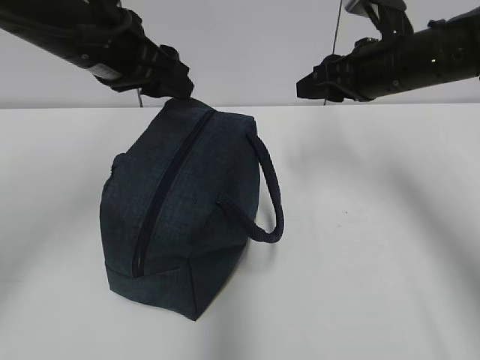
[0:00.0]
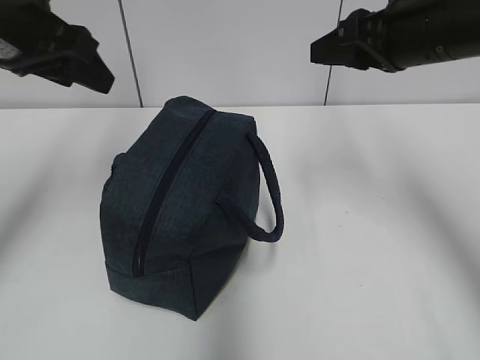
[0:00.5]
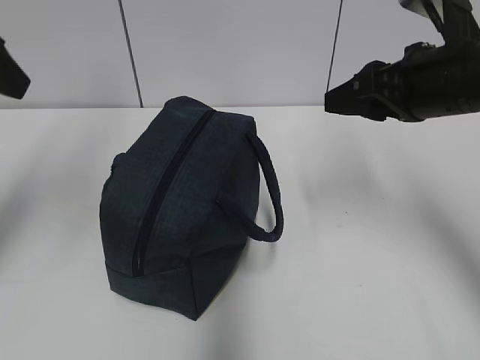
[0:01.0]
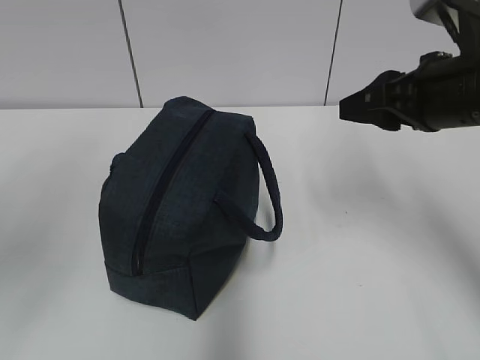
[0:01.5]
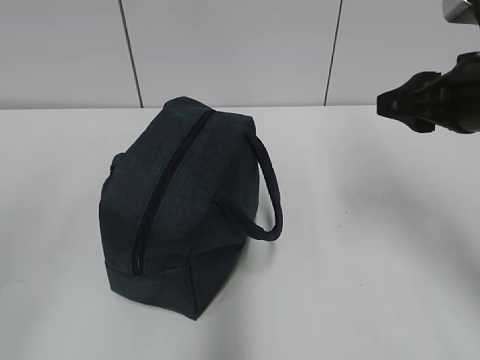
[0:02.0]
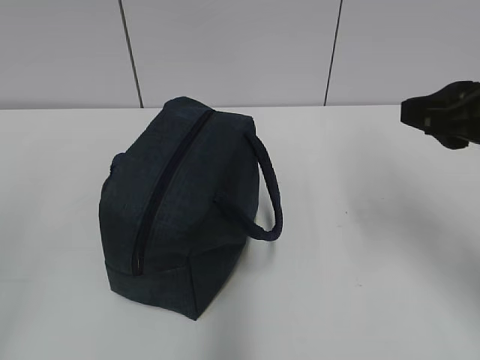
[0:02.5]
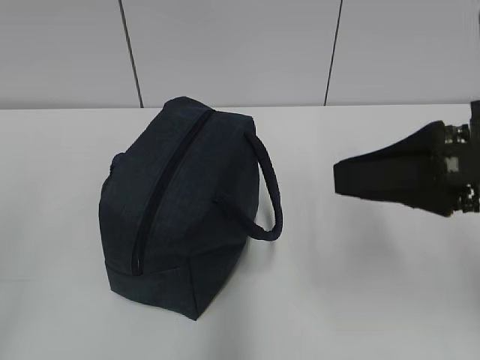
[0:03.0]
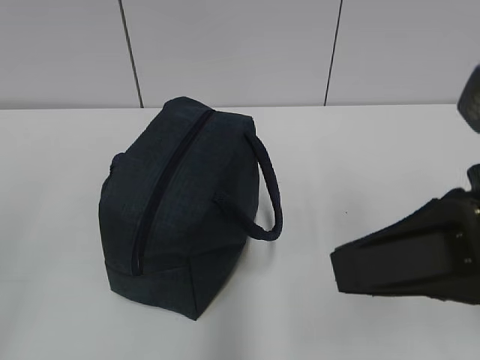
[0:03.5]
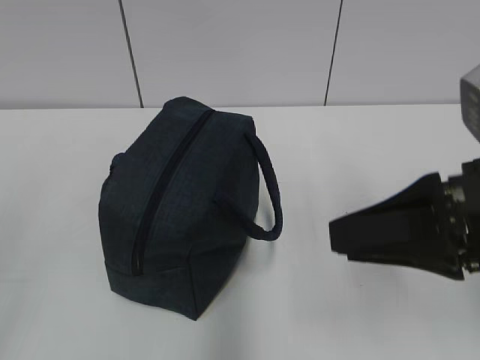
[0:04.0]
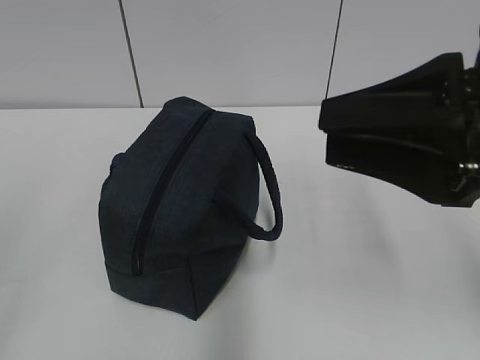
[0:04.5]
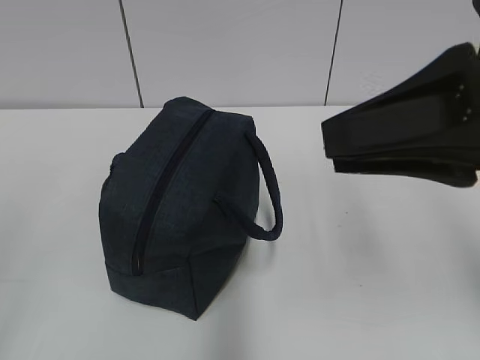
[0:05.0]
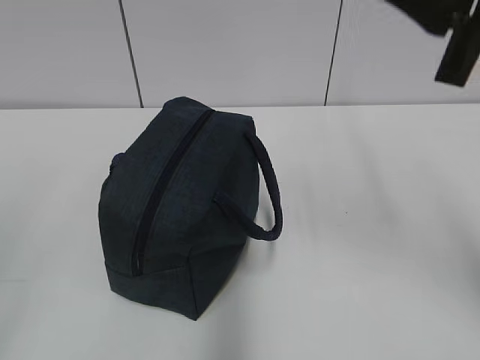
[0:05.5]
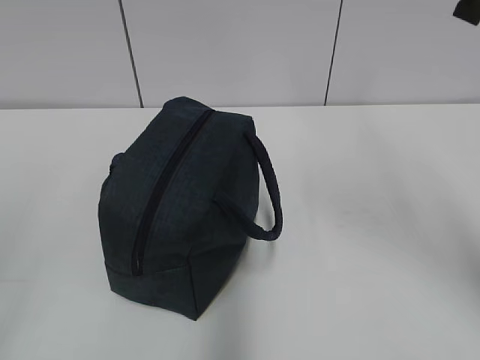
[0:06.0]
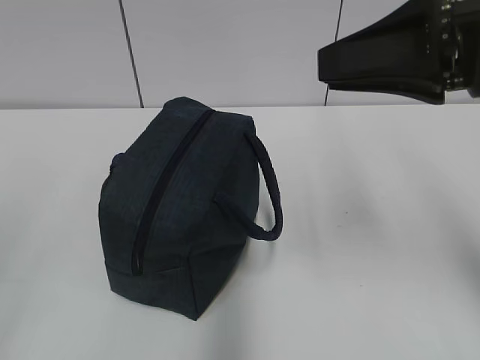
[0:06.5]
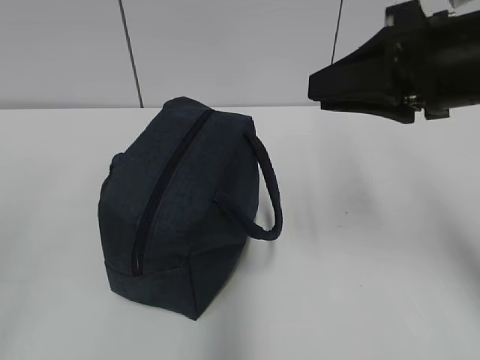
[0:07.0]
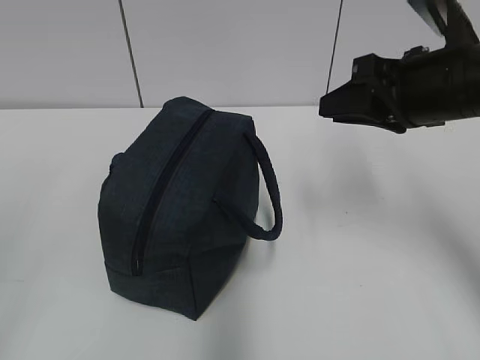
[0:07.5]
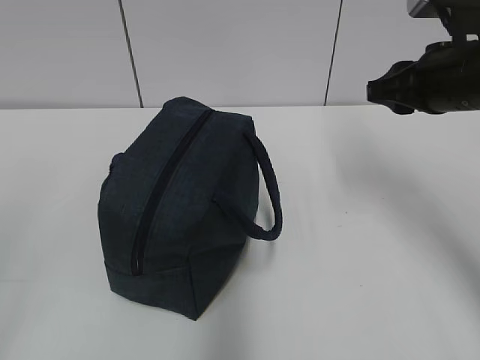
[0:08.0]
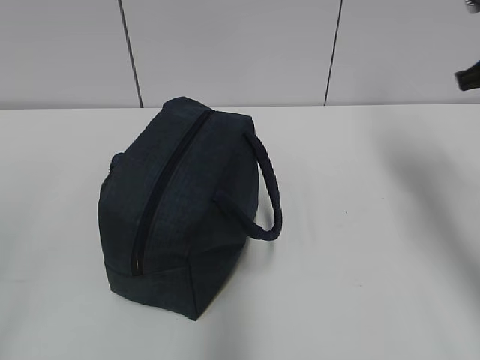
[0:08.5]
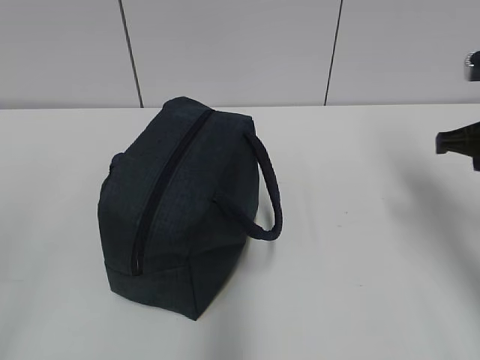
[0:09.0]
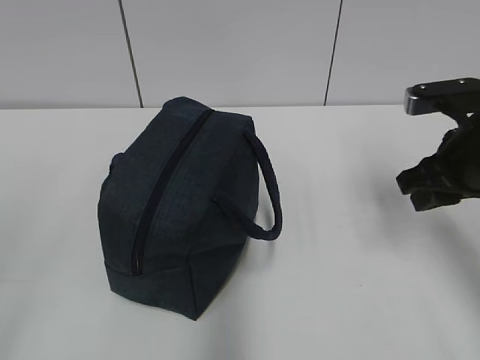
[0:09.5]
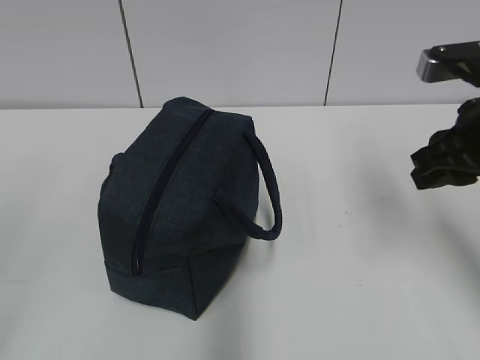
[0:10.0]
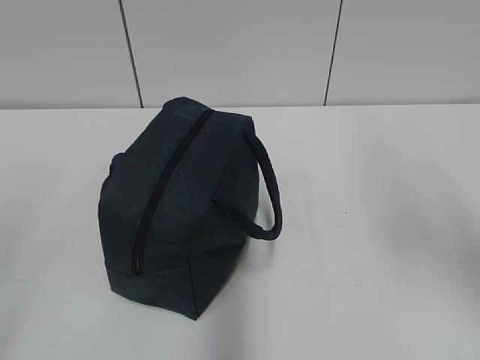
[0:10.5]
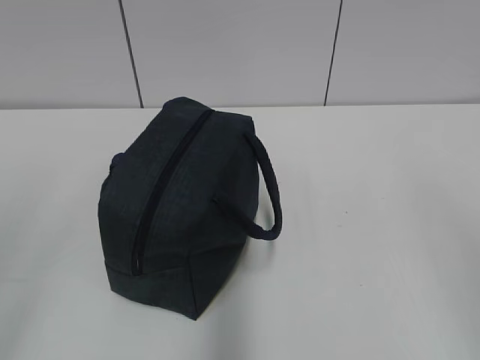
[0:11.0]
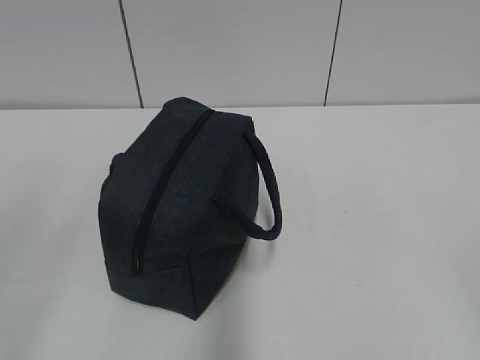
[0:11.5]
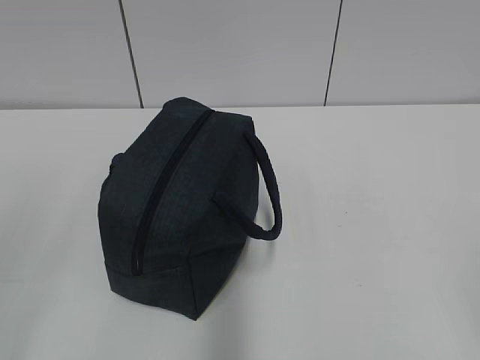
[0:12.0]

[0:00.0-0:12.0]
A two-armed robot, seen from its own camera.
0:00.0 to 0:02.0: The left gripper heads backward and to the left, covering about 35 cm, while the right gripper travels backward by about 10 cm.
0:02.0 to 0:04.0: The right gripper goes approximately 10 cm backward.
0:04.0 to 0:06.0: The right gripper shifts about 15 cm upward and forward.
0:06.0 to 0:08.0: The right gripper shifts about 15 cm downward and forward.
0:08.0 to 0:10.0: The right gripper heads backward, covering roughly 5 cm.
0:10.0 to 0:12.0: The right gripper shifts some 30 cm backward, and opens its fingers.

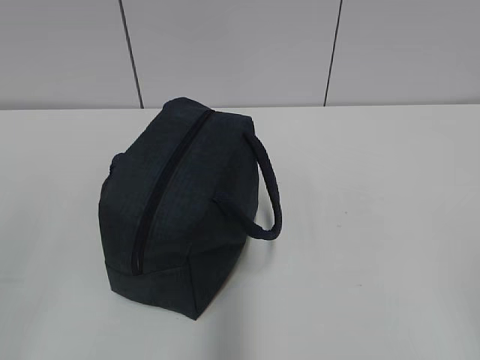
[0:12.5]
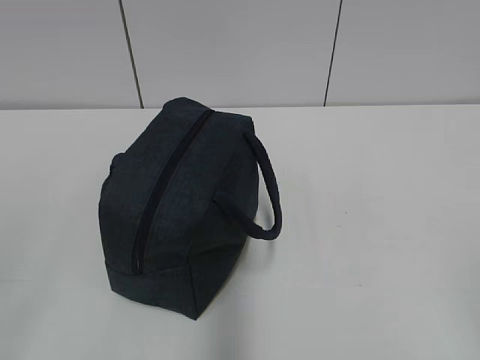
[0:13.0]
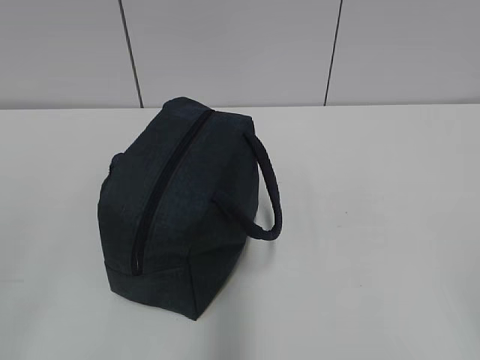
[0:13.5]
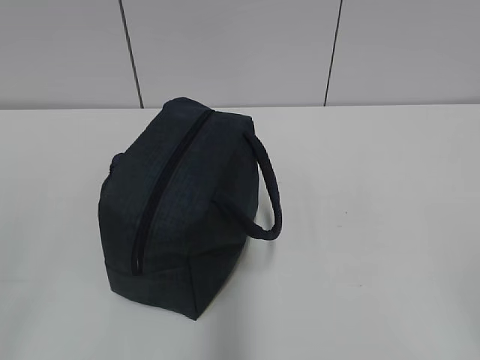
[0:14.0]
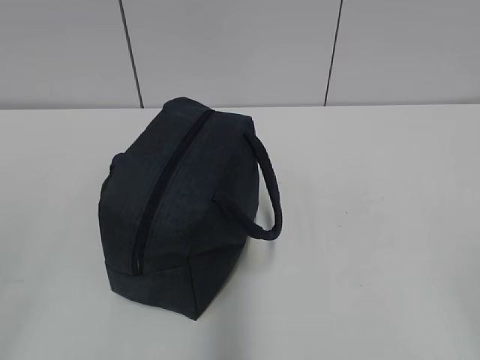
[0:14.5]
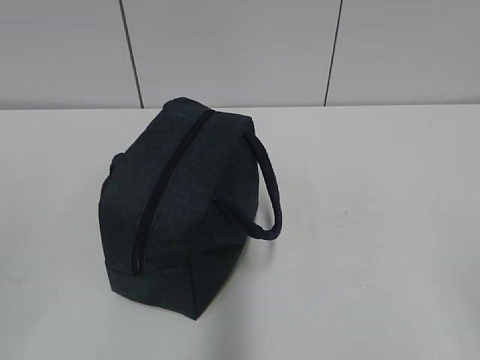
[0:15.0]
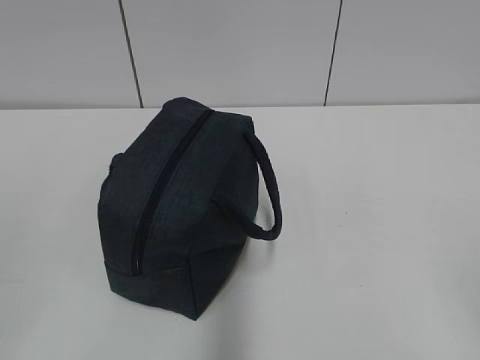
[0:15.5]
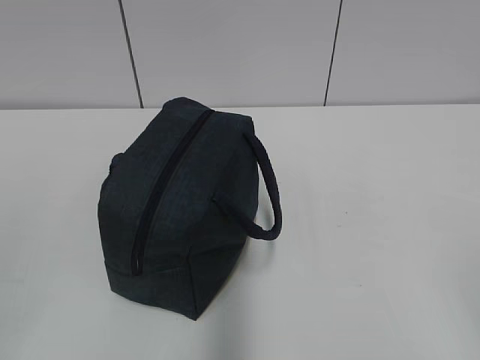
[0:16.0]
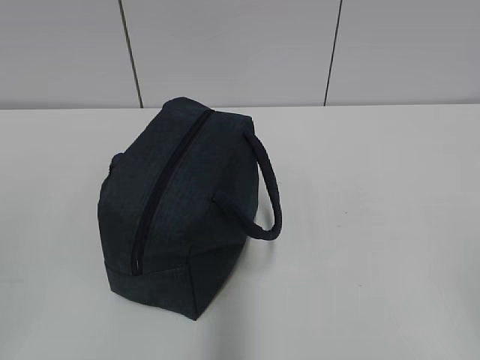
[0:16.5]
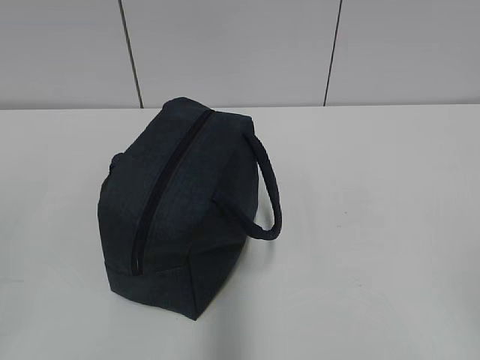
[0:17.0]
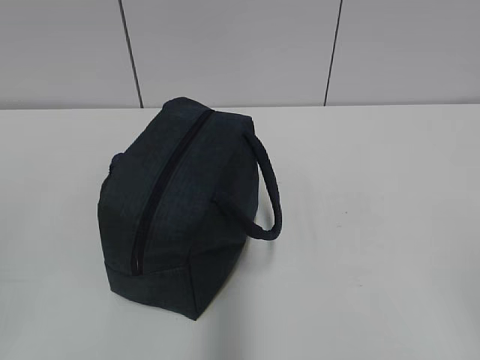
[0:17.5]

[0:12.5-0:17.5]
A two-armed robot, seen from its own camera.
0:15.0 to 0:17.5: The two grippers keep their place.
